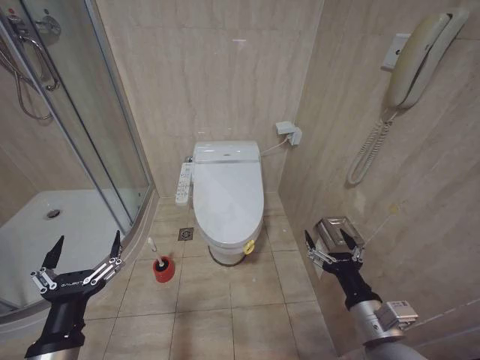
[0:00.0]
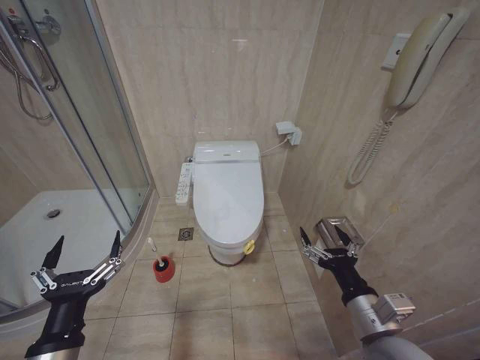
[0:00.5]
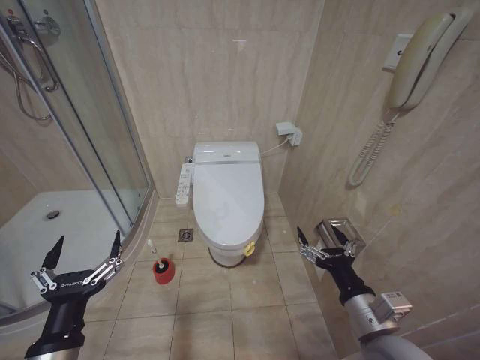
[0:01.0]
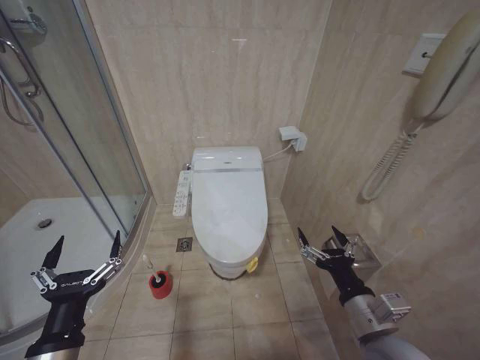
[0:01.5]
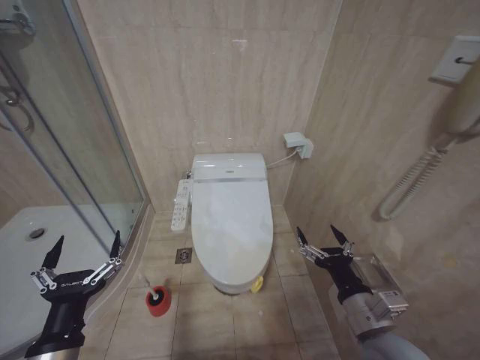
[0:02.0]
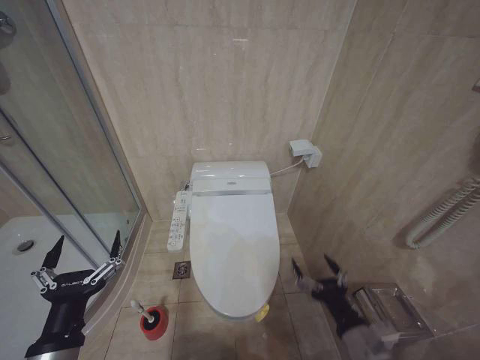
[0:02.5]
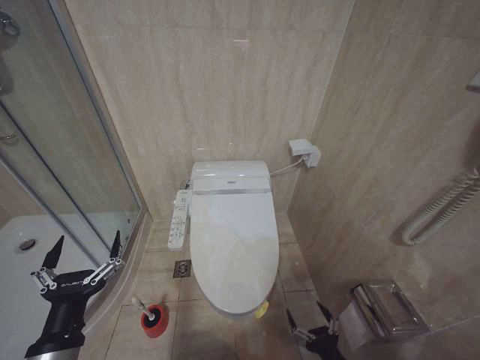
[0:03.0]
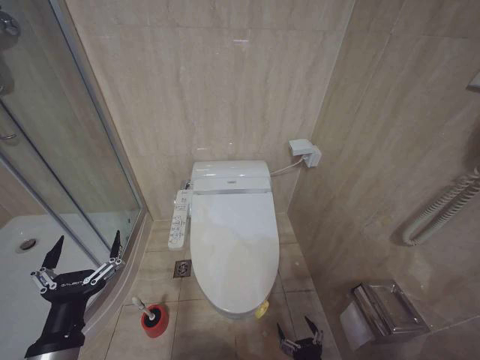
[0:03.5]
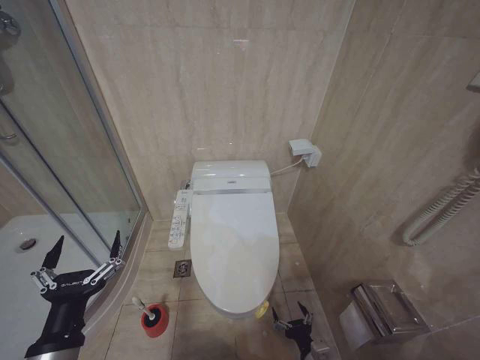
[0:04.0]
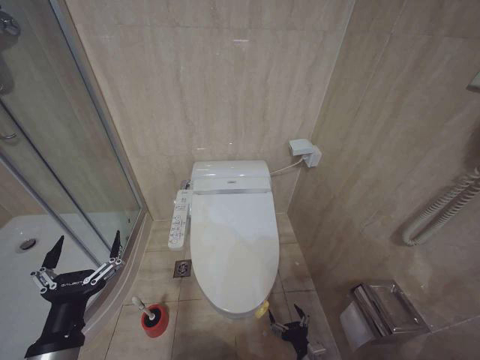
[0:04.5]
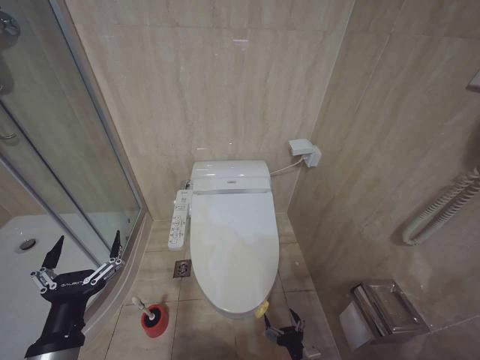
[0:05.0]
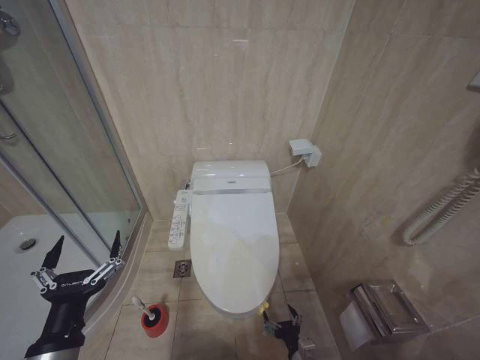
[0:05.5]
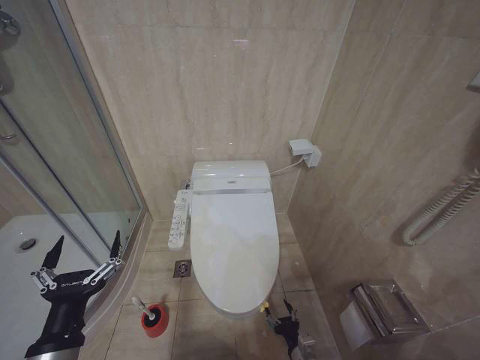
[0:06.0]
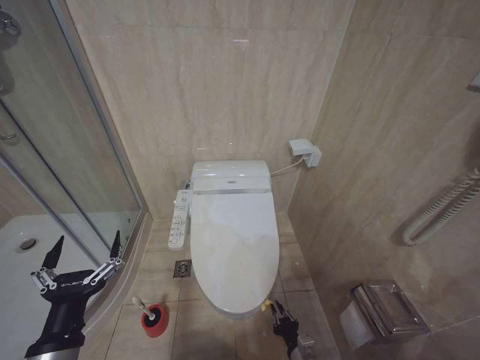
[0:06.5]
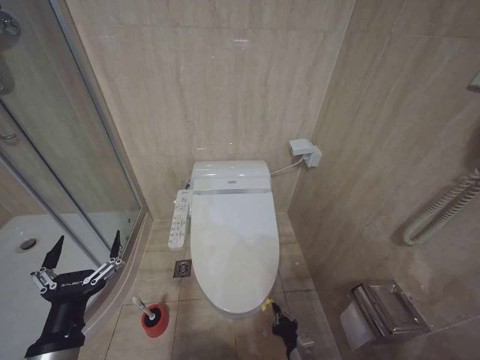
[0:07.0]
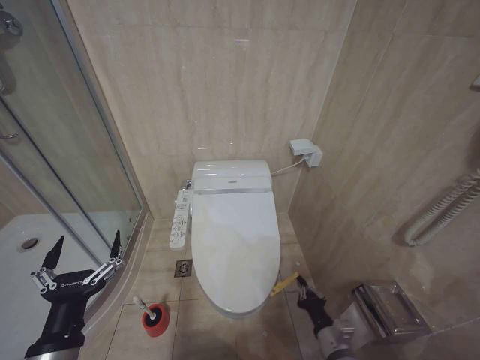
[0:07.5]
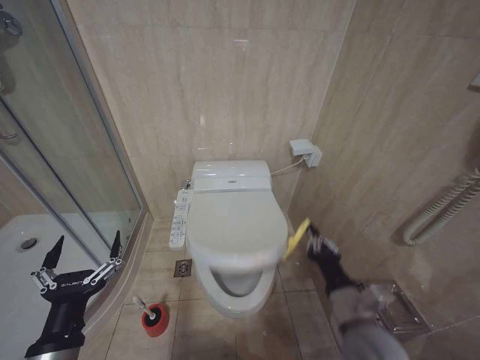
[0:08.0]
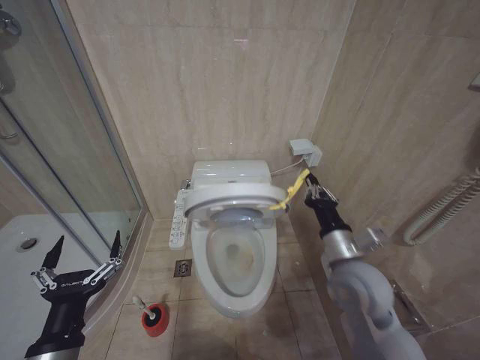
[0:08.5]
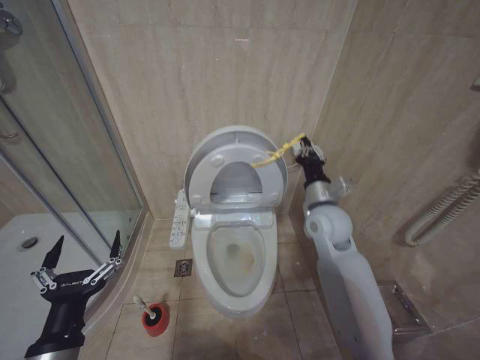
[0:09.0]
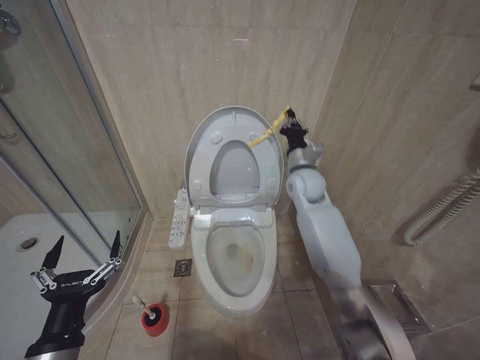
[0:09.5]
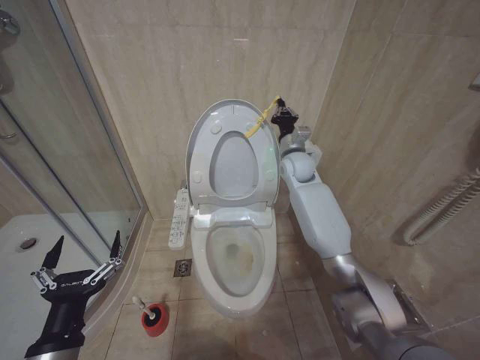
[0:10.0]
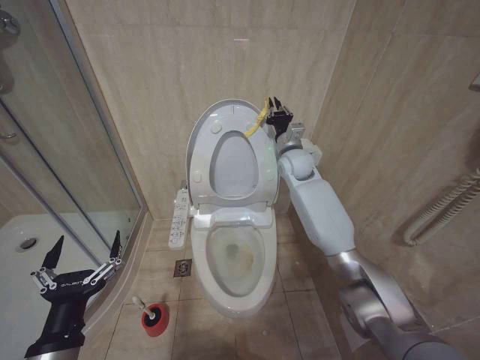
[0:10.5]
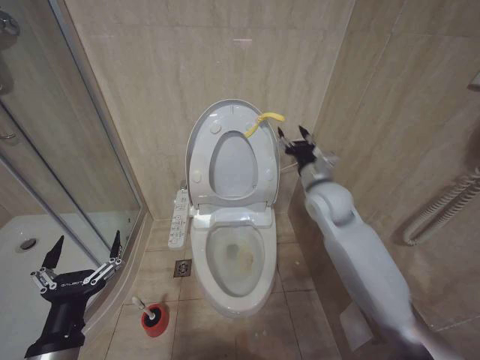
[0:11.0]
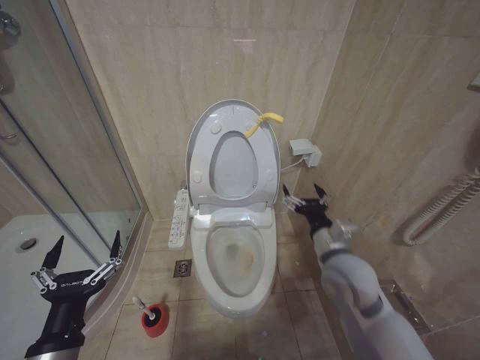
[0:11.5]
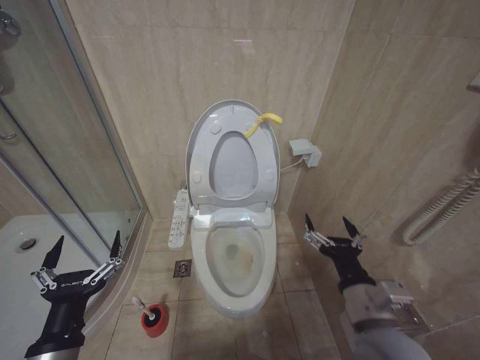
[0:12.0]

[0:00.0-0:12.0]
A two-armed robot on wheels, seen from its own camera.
Task of the whole recording: Open the toilet lid, clean the toilet bowl with a toilet brush, close the toilet lid, and flush.
2.0 to 4.0 s: The right gripper goes about 25 cm downward.
6.0 to 8.0 s: The right gripper travels upward by approximately 25 cm, and closes up.
8.0 to 10.0 s: The right gripper is displaced forward and upward by about 40 cm.
10.0 to 12.0 s: The right gripper shifts approximately 40 cm backward, and opens its fingers.

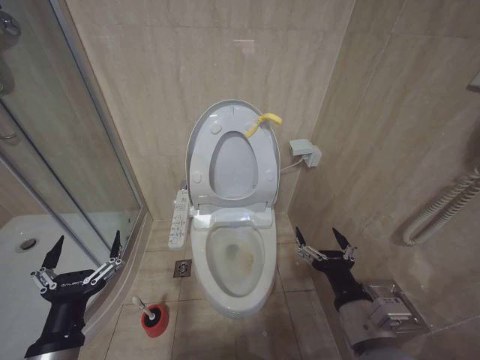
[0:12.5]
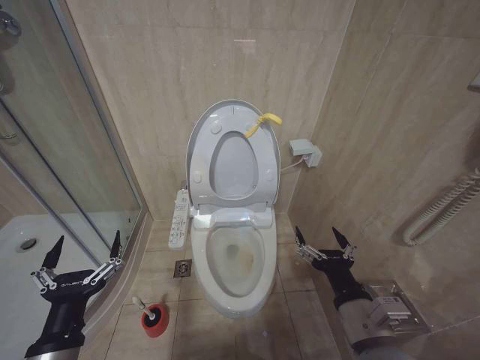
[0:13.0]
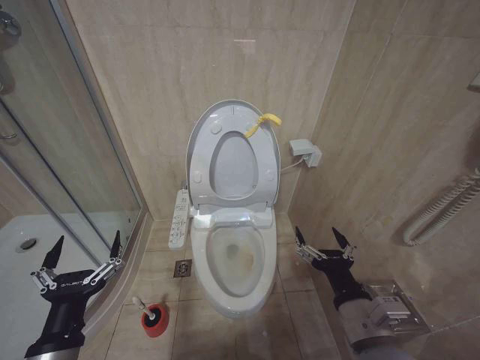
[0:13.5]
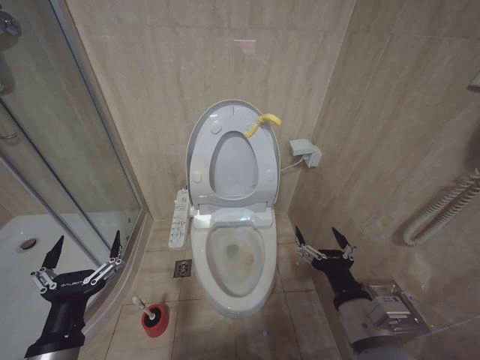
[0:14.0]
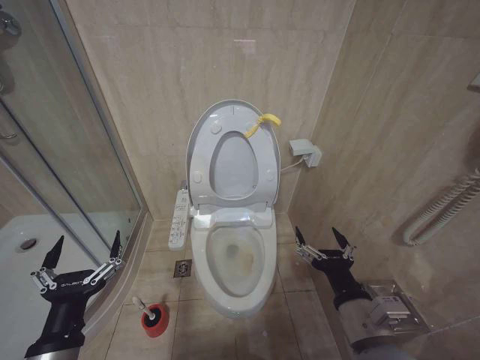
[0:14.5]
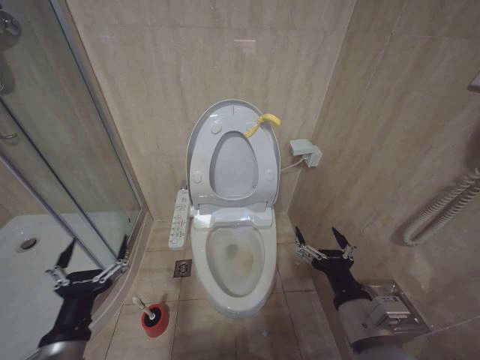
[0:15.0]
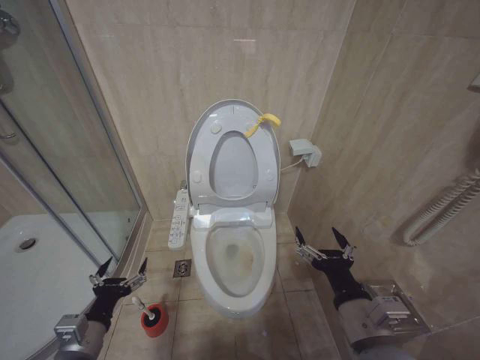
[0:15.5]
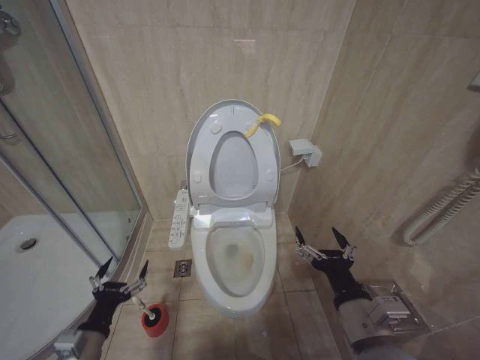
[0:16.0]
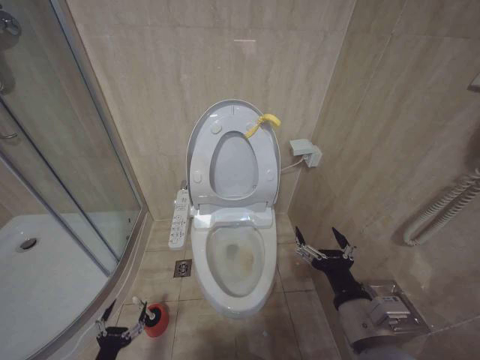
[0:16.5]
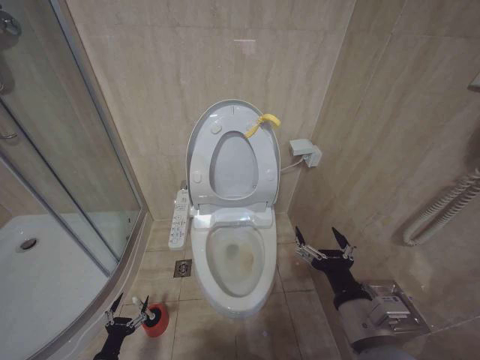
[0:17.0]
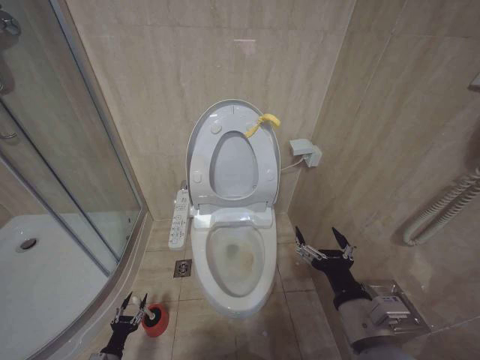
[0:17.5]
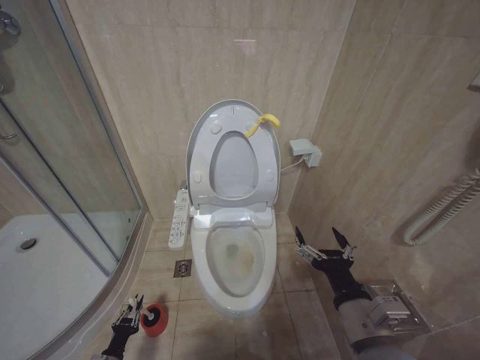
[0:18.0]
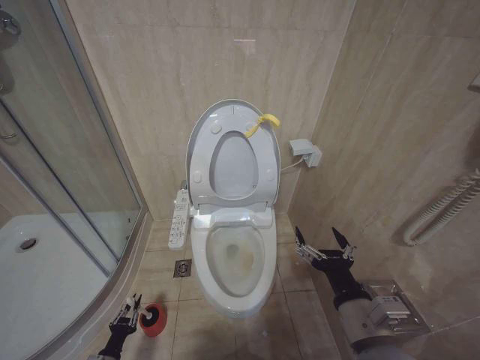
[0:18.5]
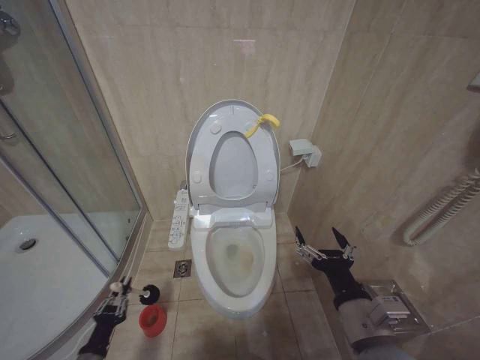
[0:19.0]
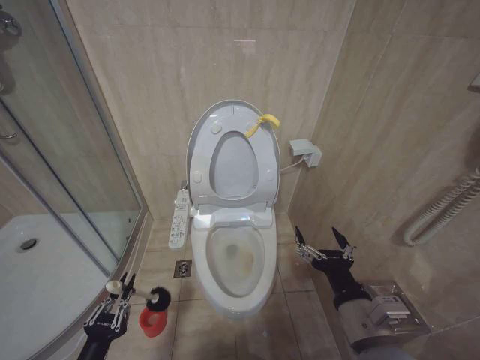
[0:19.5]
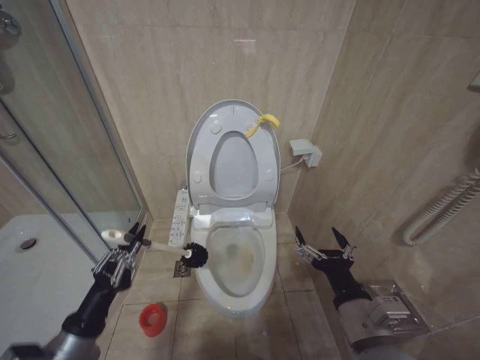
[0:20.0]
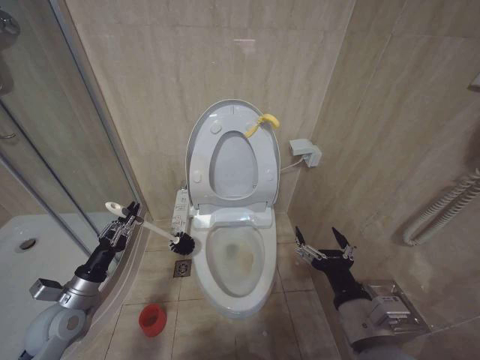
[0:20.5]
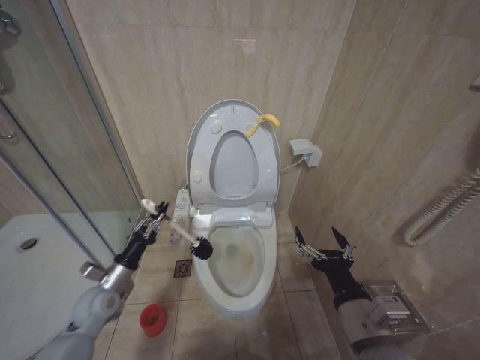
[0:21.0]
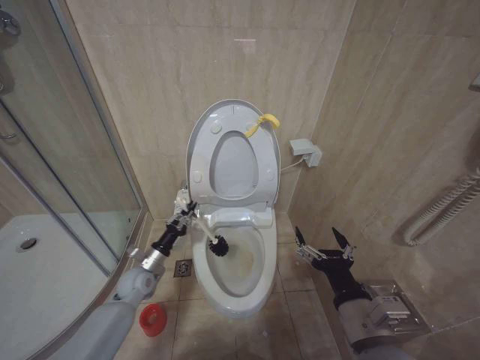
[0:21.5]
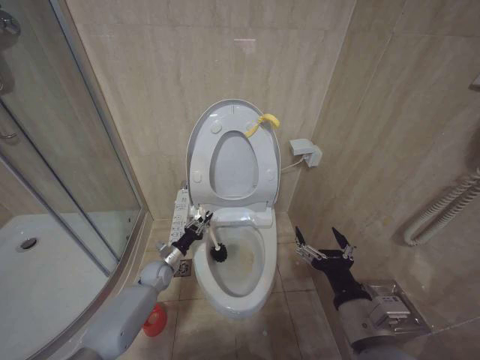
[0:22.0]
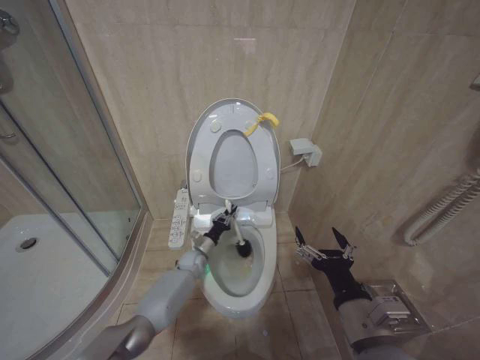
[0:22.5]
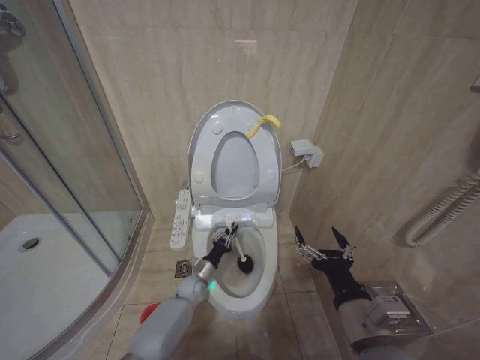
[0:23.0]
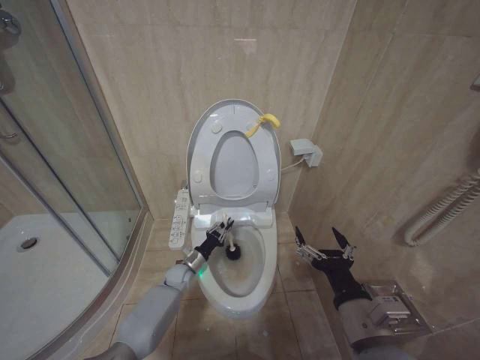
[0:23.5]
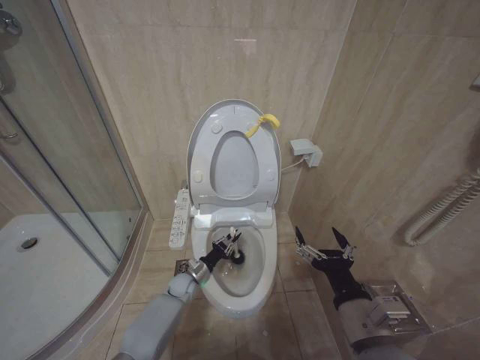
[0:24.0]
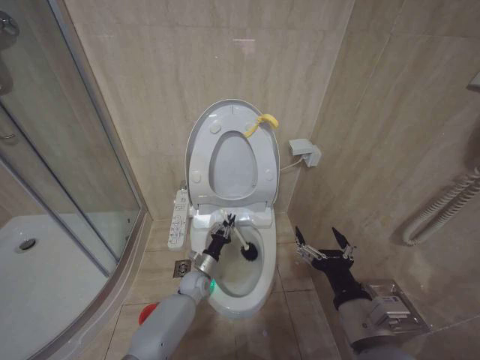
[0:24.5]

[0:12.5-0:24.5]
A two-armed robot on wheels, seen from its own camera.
Task of the whole recording: Open the toilet lid, clean the toilet bowl with a toilet brush, close the toilet lid, and flush.
12.5 to 14.5 s: Both grippers stay put.
14.5 to 16.5 s: The left gripper travels downward by approximately 25 cm.
16.5 to 18.5 s: The left gripper goes some 15 cm downward and forward, and closes up.
18.5 to 20.5 s: The left gripper goes some 30 cm upward.
20.5 to 22.5 s: The left gripper travels forward, to the right and downward by some 35 cm.
22.5 to 24.5 s: The left gripper shifts about 5 cm backward.

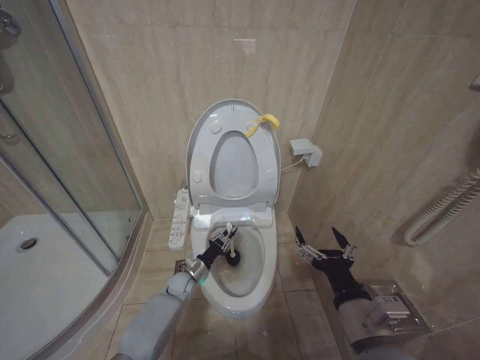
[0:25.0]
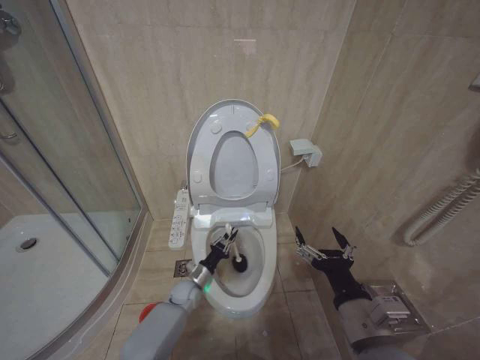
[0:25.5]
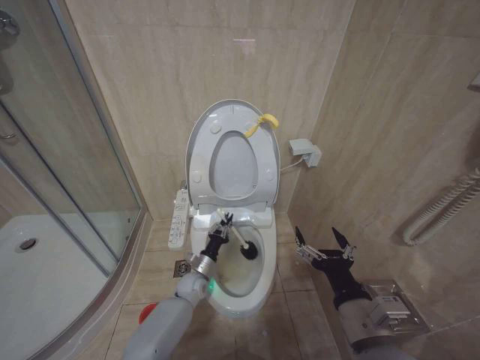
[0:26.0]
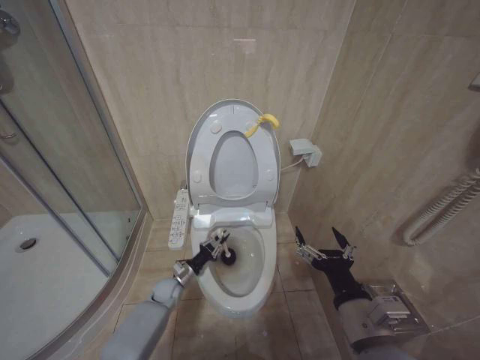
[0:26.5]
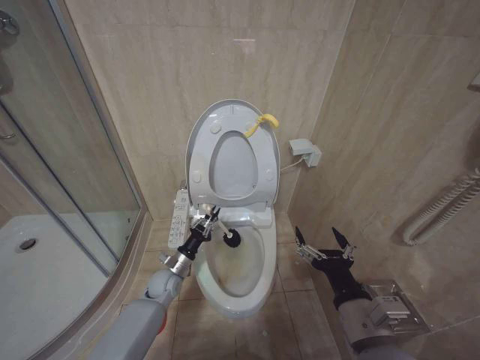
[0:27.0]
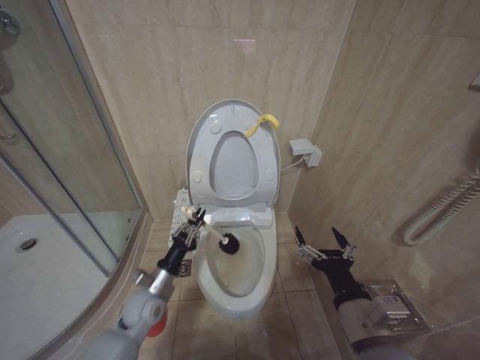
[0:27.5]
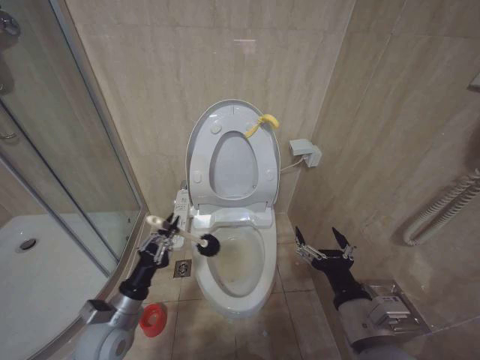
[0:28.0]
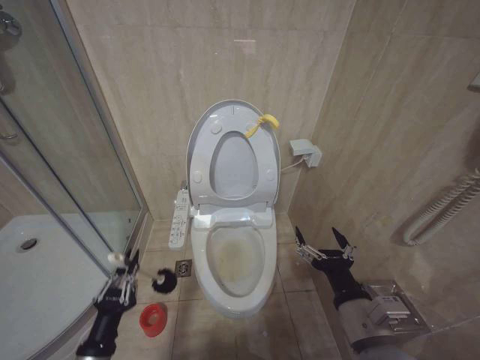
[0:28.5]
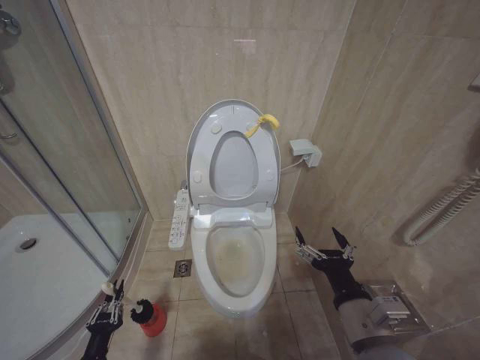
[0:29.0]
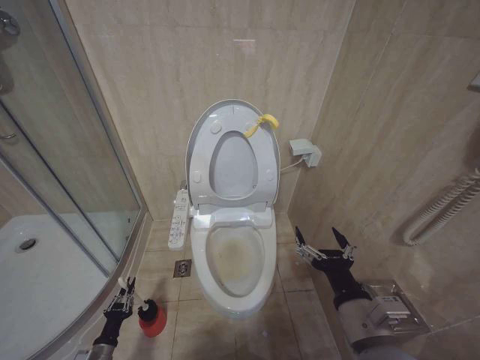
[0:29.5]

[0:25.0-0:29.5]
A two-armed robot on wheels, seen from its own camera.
Task of the whole recording: Open the toilet lid, clean the toilet bowl with a toilet brush, close the toilet lid, and flush.
25.0 to 27.0 s: The left gripper heads upward, covering about 5 cm.
27.0 to 29.5 s: The left gripper travels backward, to the left and downward by roughly 30 cm.
